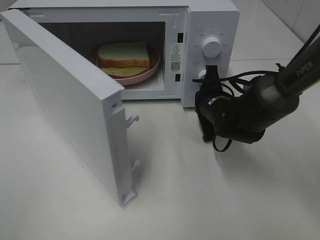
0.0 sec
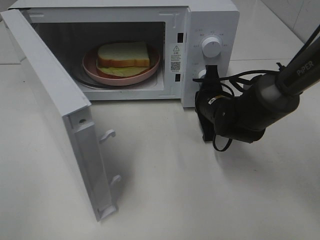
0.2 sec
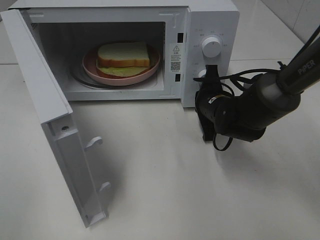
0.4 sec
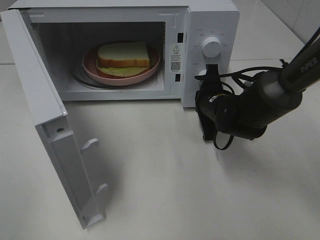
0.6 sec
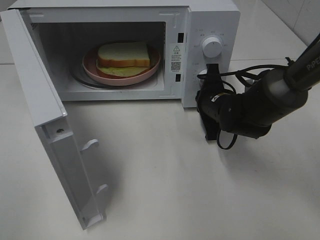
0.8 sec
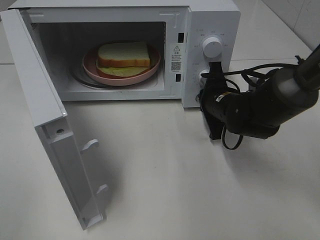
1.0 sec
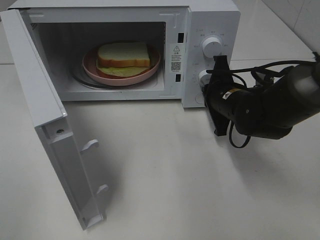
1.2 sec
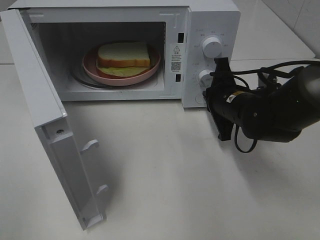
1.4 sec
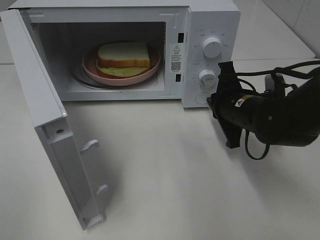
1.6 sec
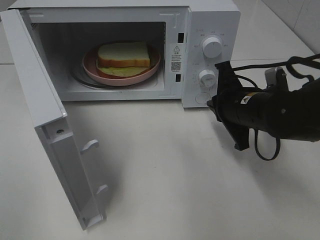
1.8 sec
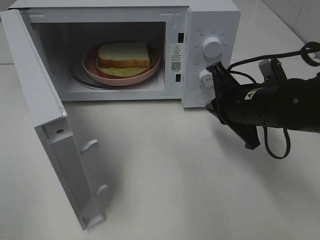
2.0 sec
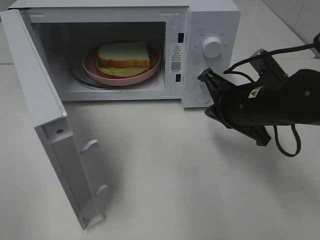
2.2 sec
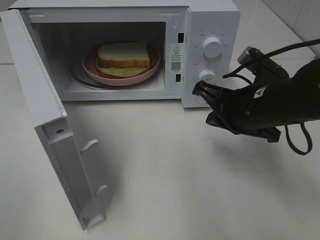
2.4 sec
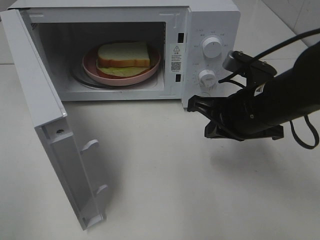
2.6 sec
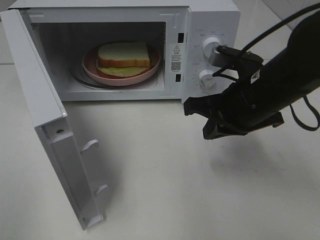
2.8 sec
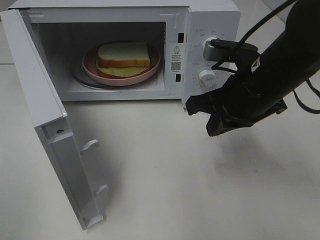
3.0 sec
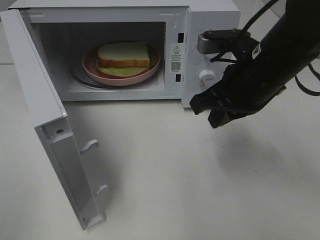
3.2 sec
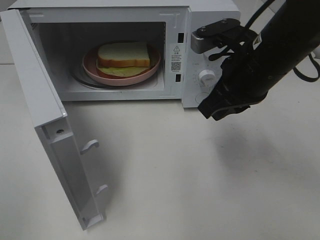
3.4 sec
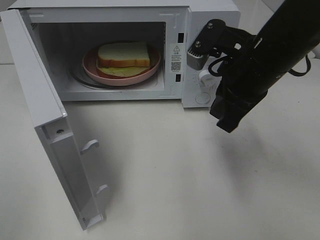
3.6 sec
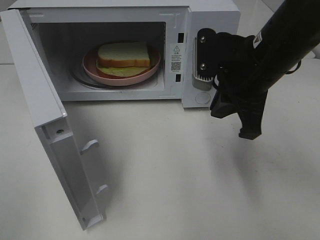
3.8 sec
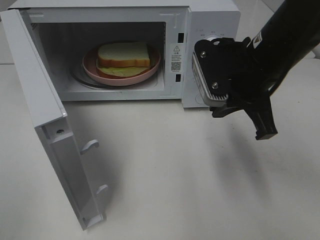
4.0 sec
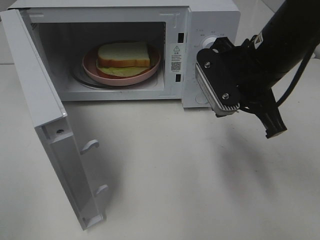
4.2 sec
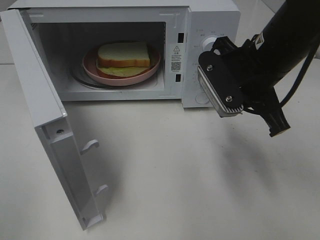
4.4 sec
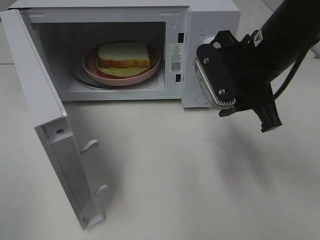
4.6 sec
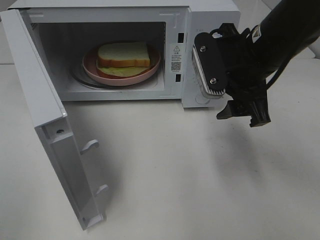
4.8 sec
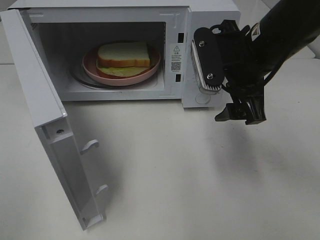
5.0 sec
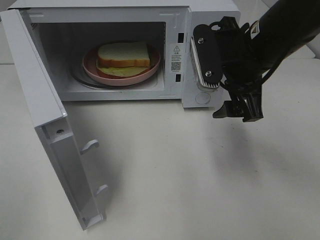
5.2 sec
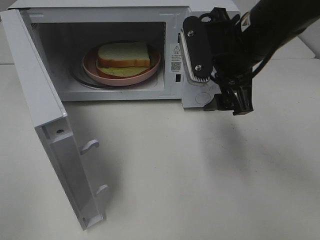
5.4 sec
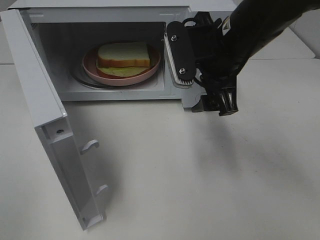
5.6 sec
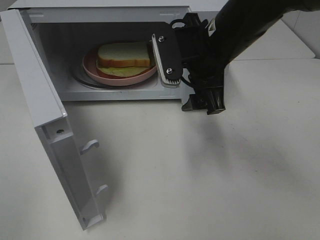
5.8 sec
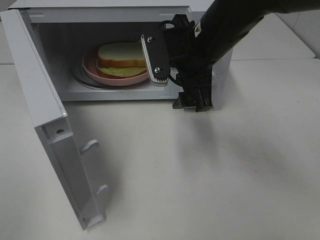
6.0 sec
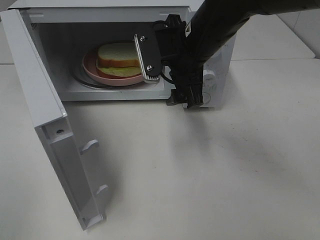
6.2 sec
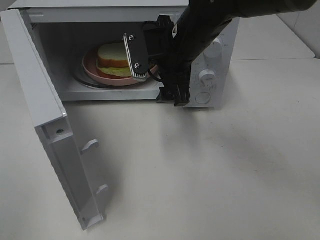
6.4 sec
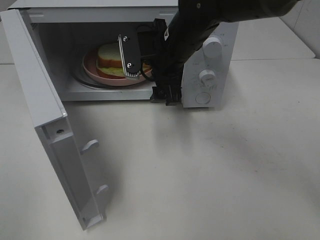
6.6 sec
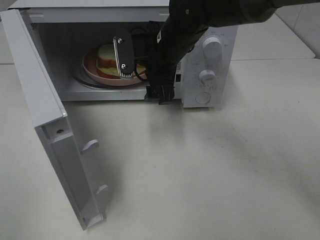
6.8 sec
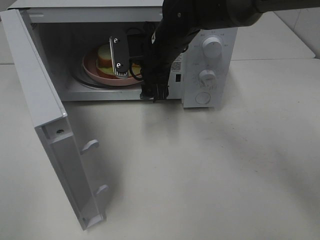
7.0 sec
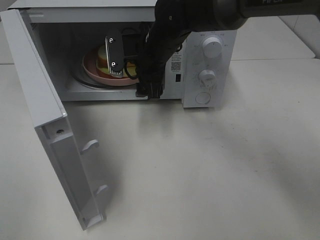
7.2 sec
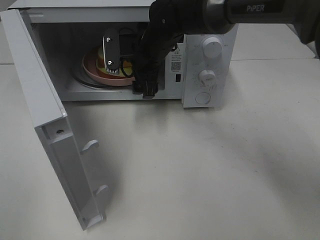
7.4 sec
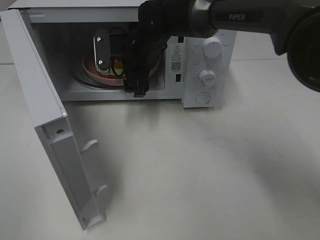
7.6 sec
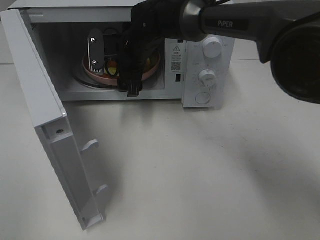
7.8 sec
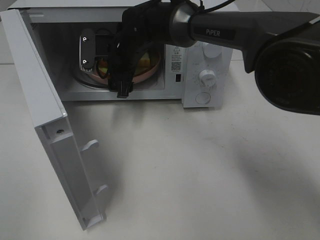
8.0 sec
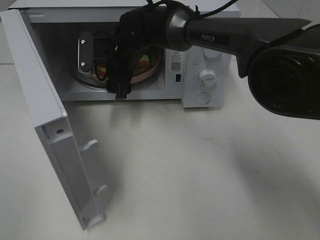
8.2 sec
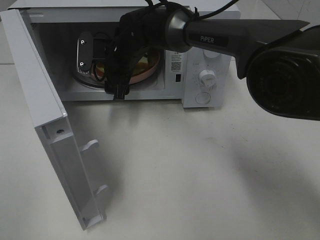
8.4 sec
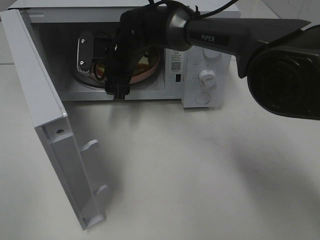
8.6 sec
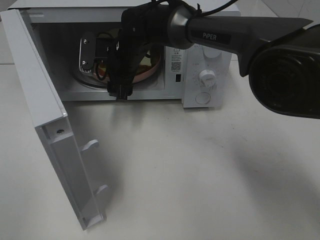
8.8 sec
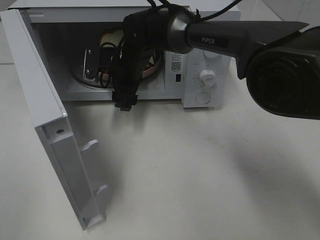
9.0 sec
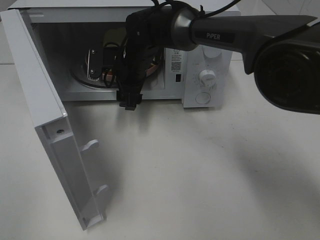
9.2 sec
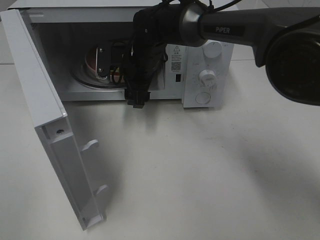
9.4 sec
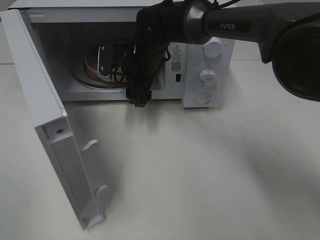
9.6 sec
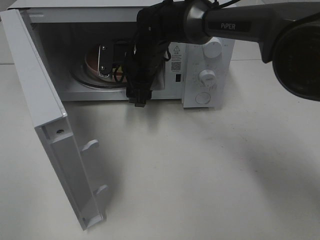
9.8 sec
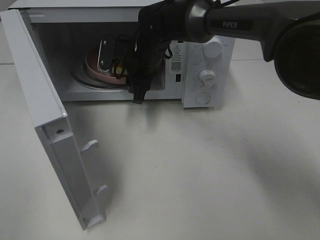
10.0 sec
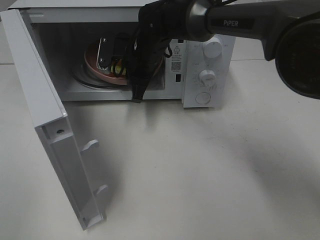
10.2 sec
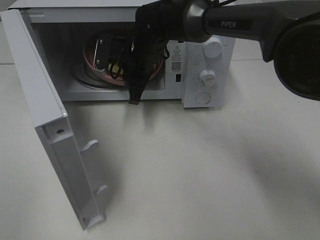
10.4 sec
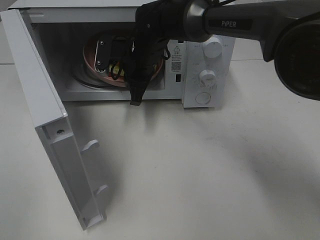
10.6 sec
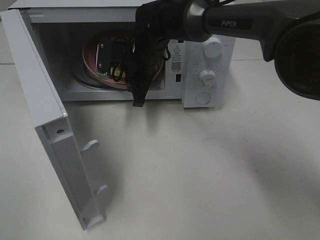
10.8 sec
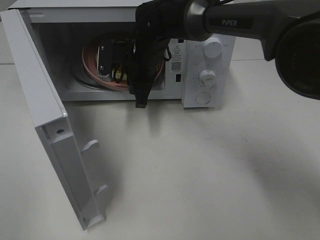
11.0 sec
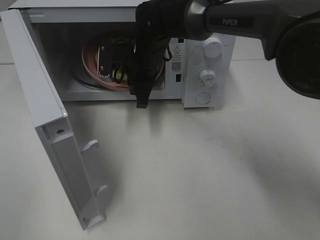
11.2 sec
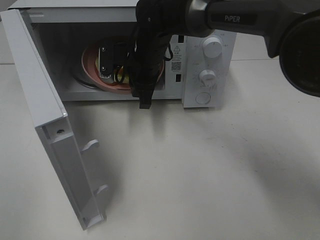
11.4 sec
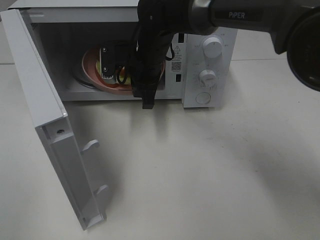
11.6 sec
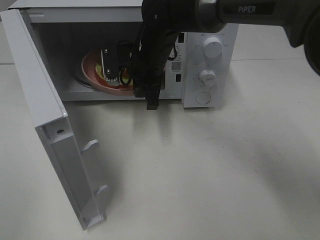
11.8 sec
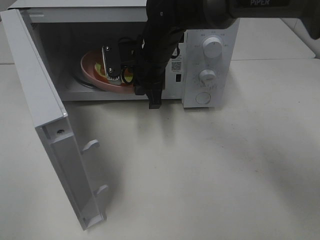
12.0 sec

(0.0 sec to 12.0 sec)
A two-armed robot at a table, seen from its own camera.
Task of the whole recording: Heat Sandwich.
Step, 1.6 sec - 10.4 sec: Right hand: grab the plate with the sandwich.
0.0 sec - 1.6 sec: The right gripper is displaced backward by some 5 cm.
1.6 sec - 3.0 sec: The right gripper moves upward, roughly 10 cm.
4.4 sec - 6.0 sec: The right gripper moves to the left, some 5 cm, and opens up.
6.0 sec - 7.6 sec: The right gripper shifts some 15 cm forward, to the left and downward.
7.6 sec - 9.0 sec: The grippers stay close to where they were, moving slightly.
9.0 sec - 10.4 sec: The right gripper closes.
10.4 sec - 12.0 sec: There are only small adjustments of the grippers.

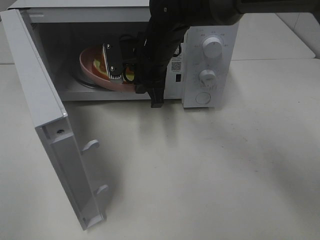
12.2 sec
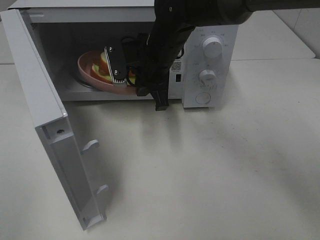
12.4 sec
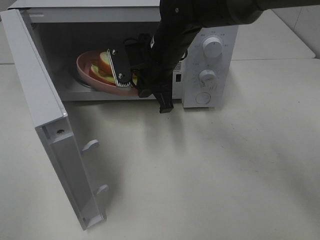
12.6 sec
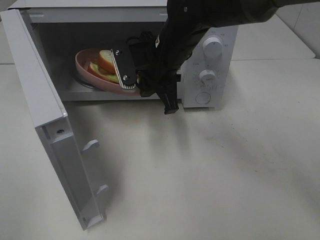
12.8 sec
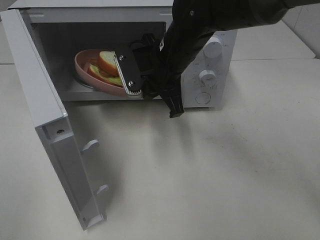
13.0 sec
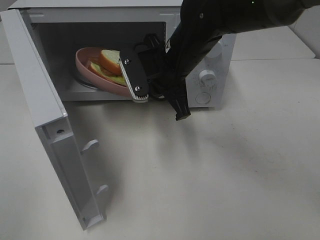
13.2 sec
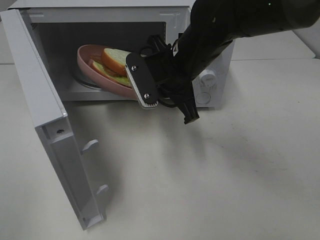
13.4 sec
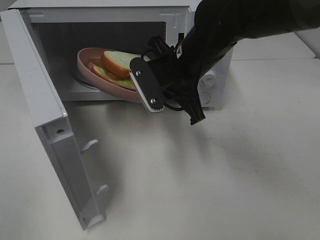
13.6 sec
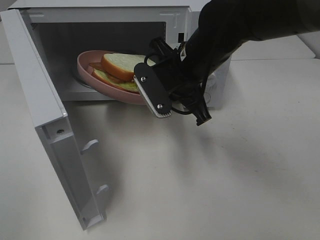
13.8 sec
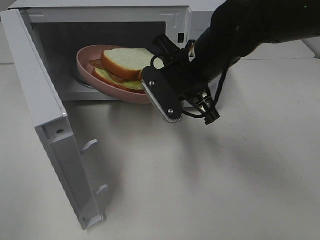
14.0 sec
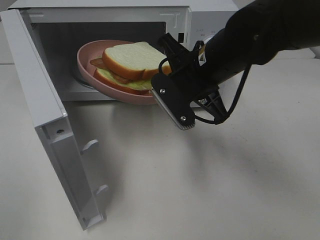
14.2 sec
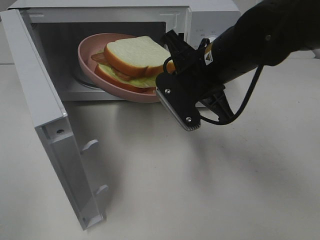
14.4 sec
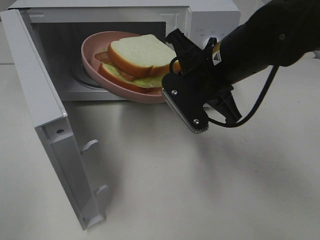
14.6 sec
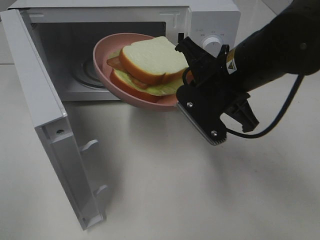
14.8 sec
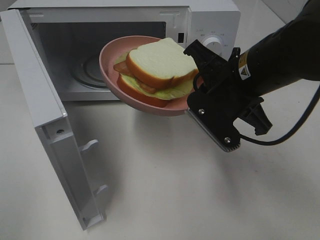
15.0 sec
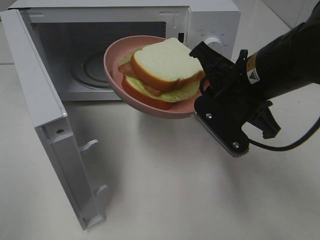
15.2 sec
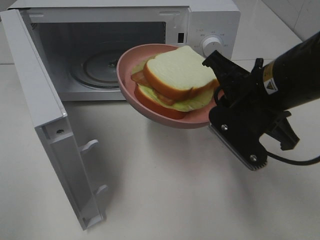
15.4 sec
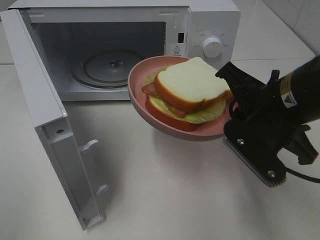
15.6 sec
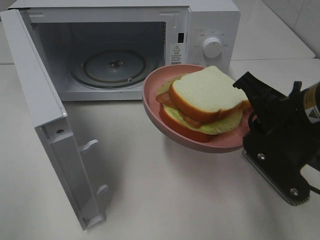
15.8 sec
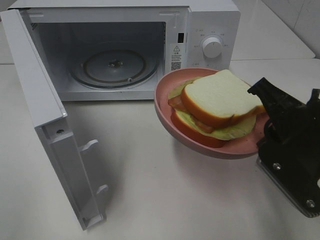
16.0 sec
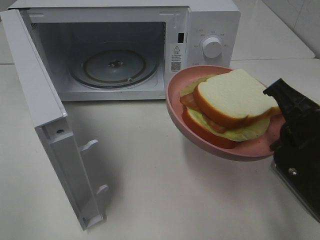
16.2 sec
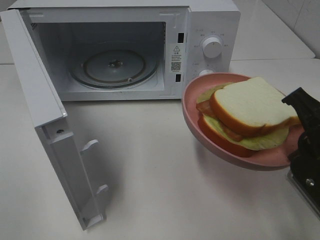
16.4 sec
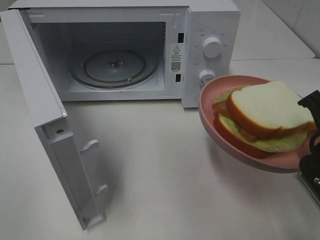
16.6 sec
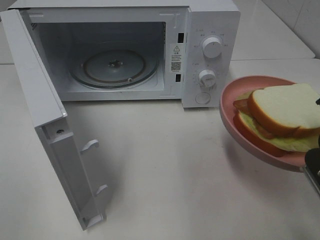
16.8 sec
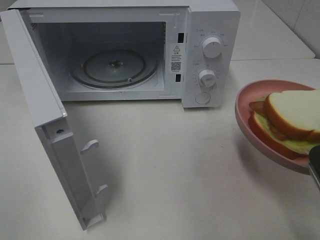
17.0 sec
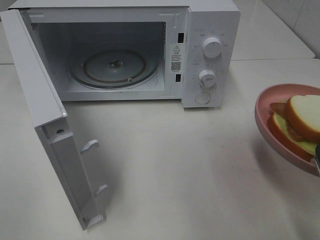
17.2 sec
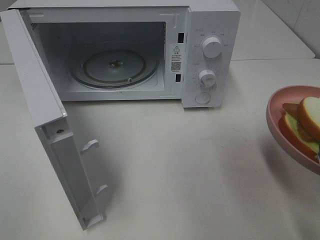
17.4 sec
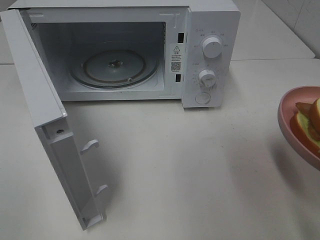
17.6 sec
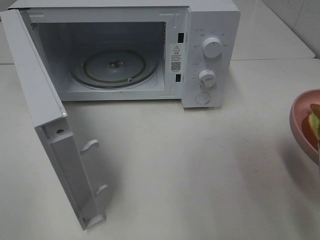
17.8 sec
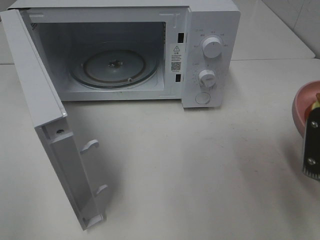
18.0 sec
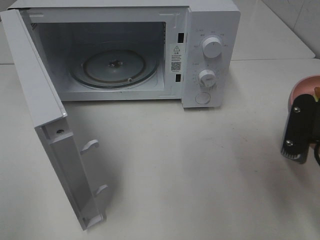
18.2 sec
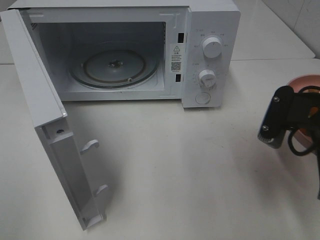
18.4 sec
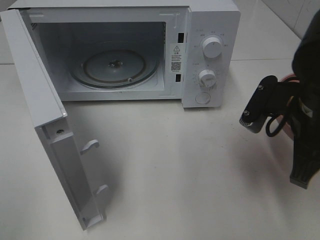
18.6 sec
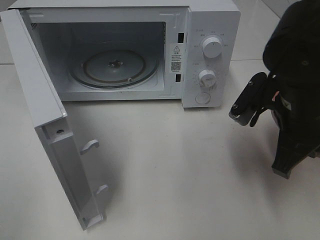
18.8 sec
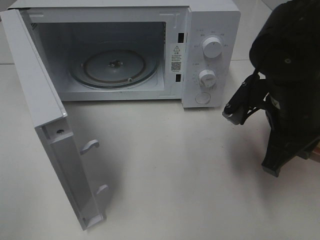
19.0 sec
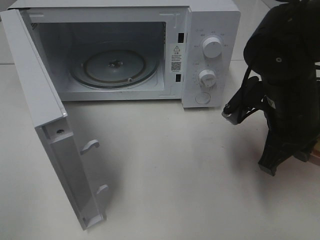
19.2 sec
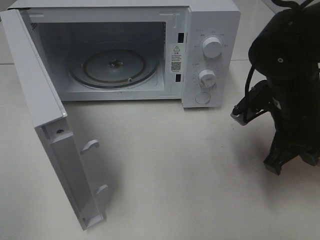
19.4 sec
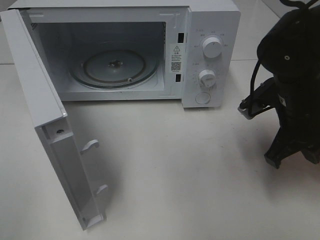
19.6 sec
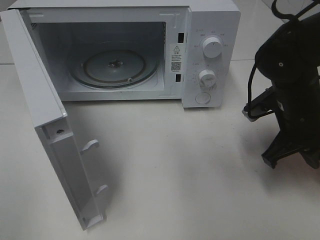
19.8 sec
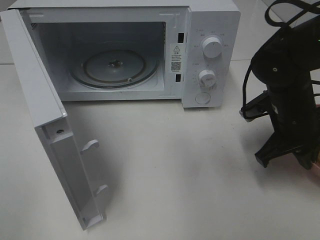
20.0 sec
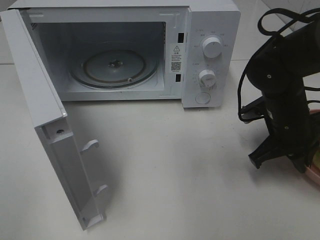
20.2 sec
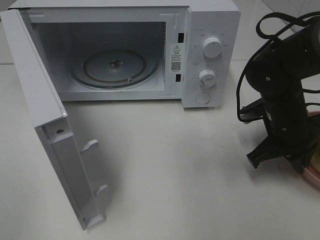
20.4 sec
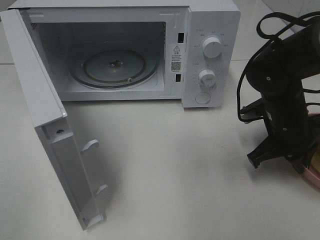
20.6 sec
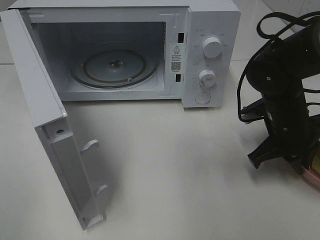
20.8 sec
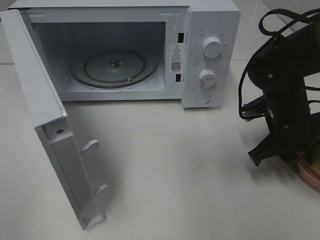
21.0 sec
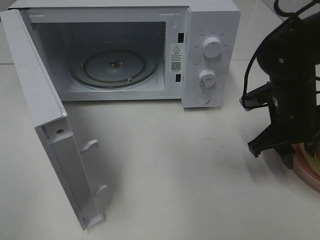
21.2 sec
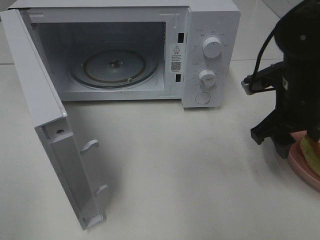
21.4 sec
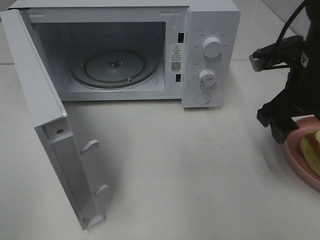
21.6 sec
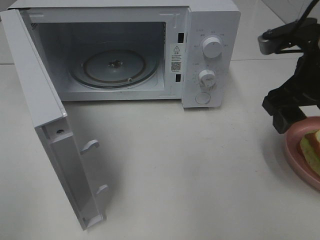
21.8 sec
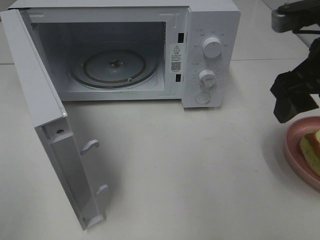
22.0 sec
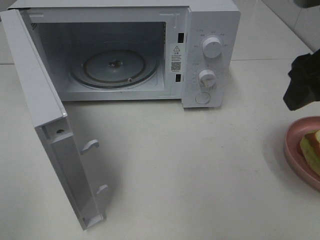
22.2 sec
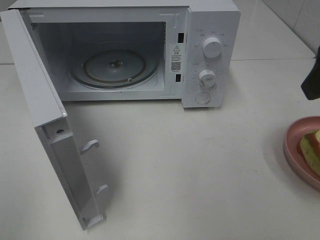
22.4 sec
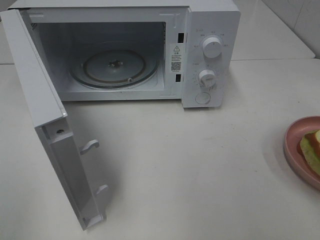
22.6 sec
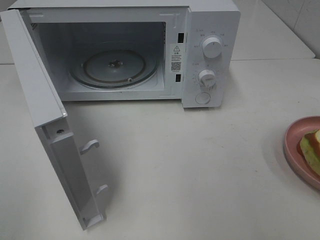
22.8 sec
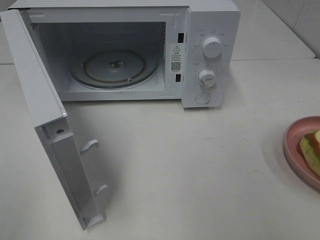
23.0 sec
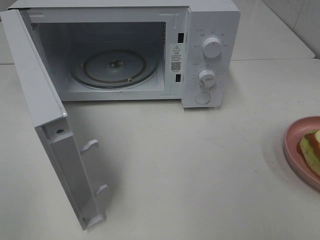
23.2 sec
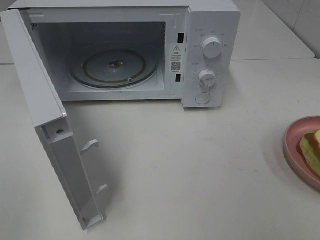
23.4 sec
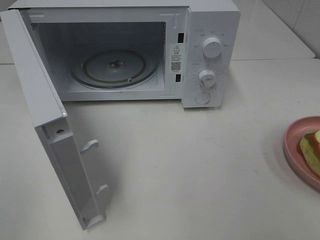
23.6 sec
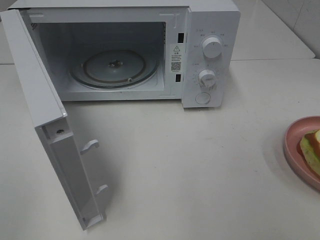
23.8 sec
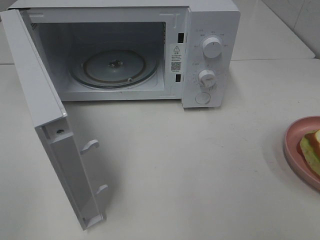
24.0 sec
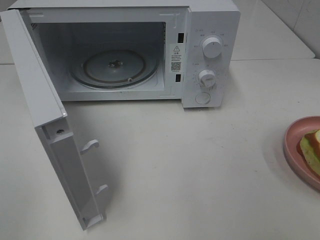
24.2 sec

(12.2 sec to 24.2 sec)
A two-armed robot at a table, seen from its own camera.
Task of the whole recording: Heat Sandwich.
Step, 12.2 sec - 22.0 sec: Right hand: place the plate on the table.
12.2 sec - 13.8 sec: The right gripper travels backward and to the right by about 10 cm.
13.8 sec - 15.2 sec: The right gripper travels backward and to the right by some 10 cm.
15.2 sec - 16.6 sec: The right gripper heads backward and to the right, covering approximately 15 cm.
18.2 sec - 19.8 sec: The right gripper heads forward and downward, covering some 15 cm.
19.8 sec - 21.2 sec: The right gripper opens.
21.2 sec - 22.6 sec: The right gripper shifts about 25 cm upward and backward.
